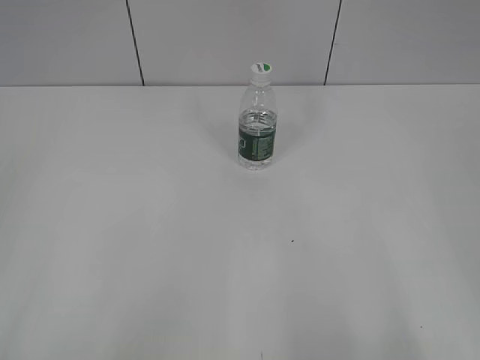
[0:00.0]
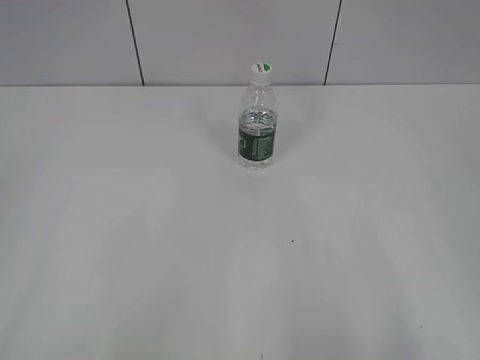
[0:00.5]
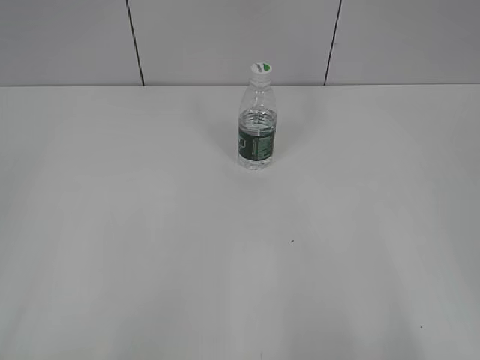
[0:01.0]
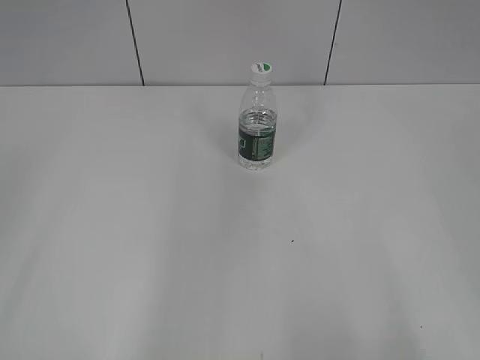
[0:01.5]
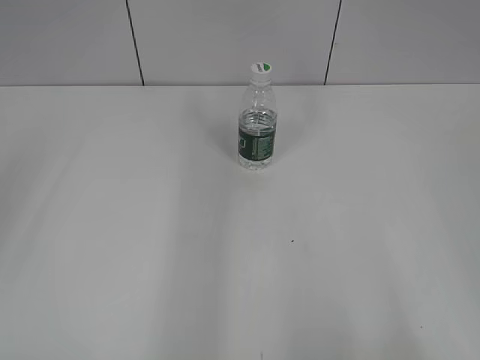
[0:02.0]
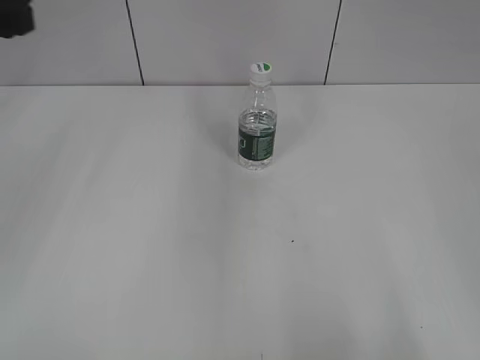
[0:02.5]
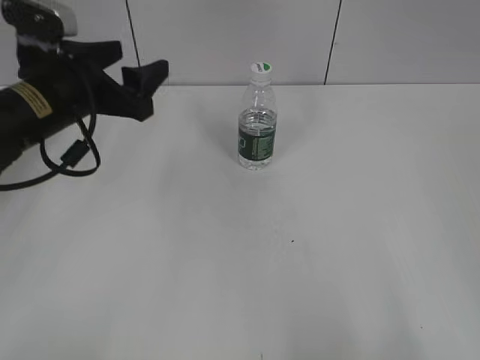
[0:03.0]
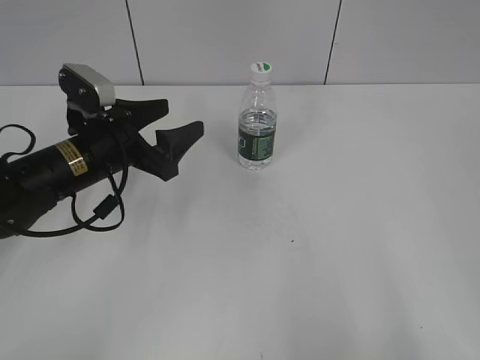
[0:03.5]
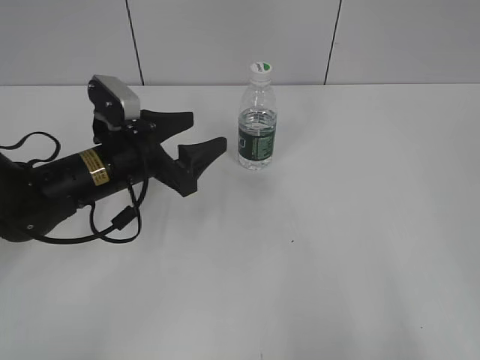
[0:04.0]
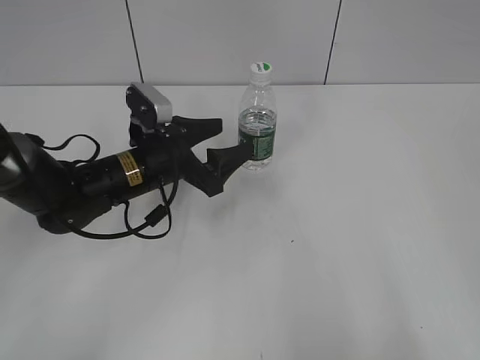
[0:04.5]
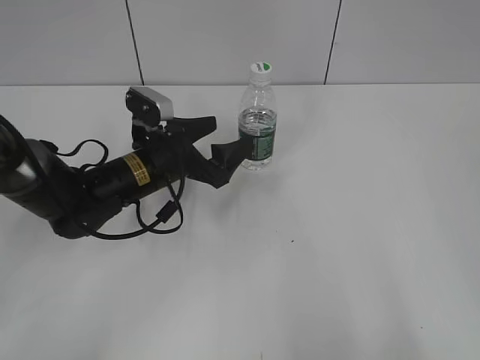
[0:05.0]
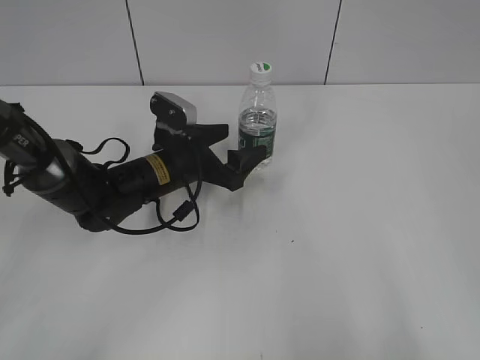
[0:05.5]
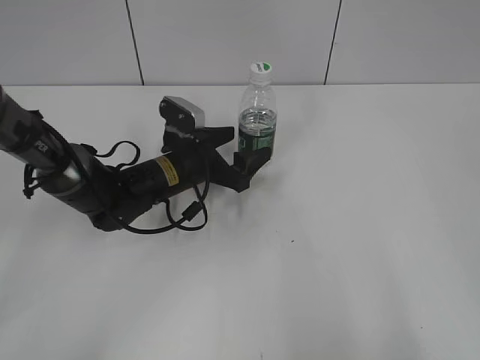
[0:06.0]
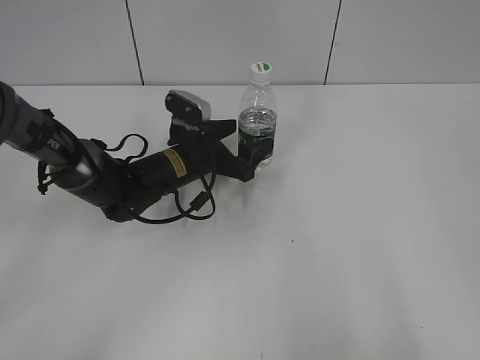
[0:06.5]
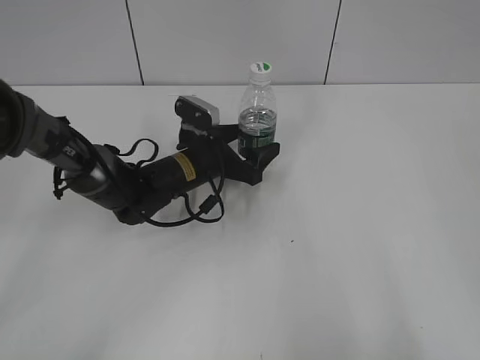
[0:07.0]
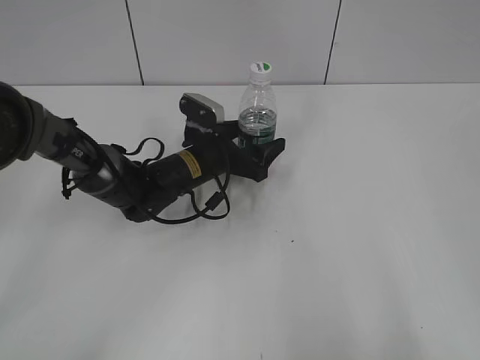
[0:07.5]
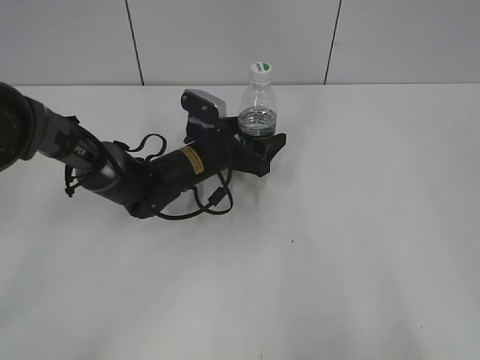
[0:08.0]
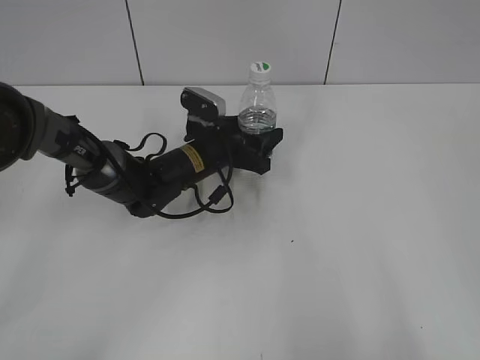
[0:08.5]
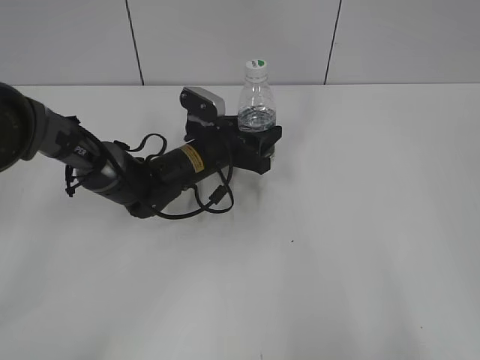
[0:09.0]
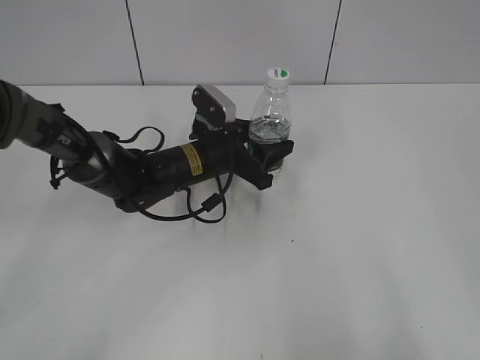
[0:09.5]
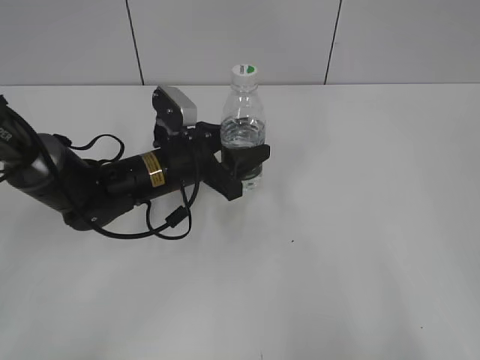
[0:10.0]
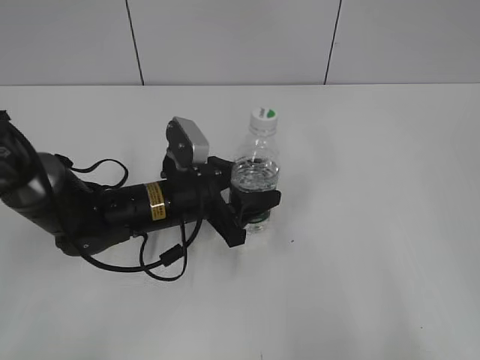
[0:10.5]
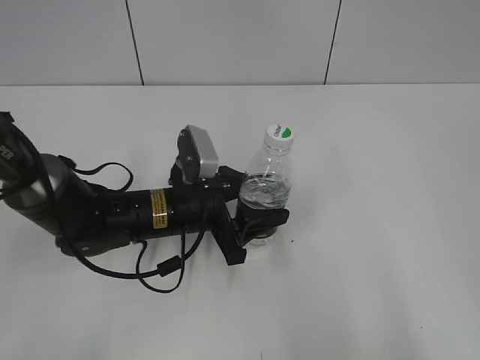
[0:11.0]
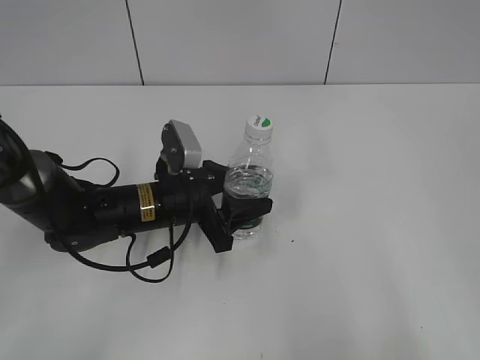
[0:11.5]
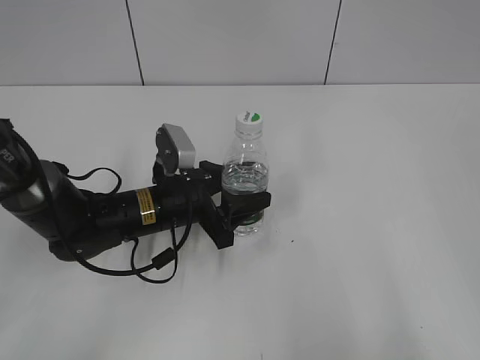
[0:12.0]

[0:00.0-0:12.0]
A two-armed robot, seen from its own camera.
Step, 0.0 to 8.5 s: Grasp the bottle and move it to the center of the table with the left gripper.
2.0 to 4.0 s: The left gripper travels downward, forward and to the right by roughly 35 cm.
4.0 to 6.0 s: The left gripper heads to the right, downward and forward, covering about 10 cm, and opens up.
6.0 to 8.0 s: The grippers make only small movements.
8.0 to 10.0 s: The left gripper heads backward, covering about 5 cm, and closes up.
10.0 to 12.0 s: The left gripper ends up about 5 cm from where it was.

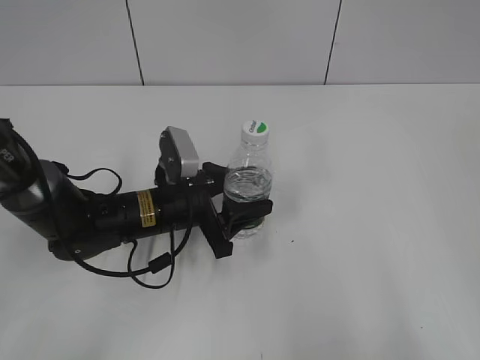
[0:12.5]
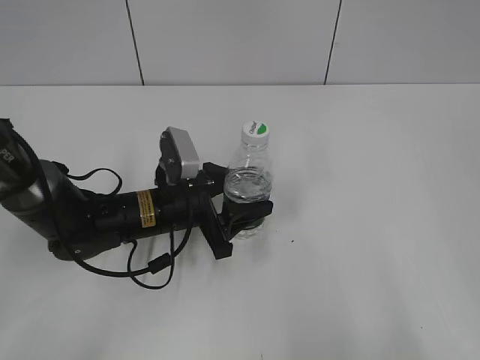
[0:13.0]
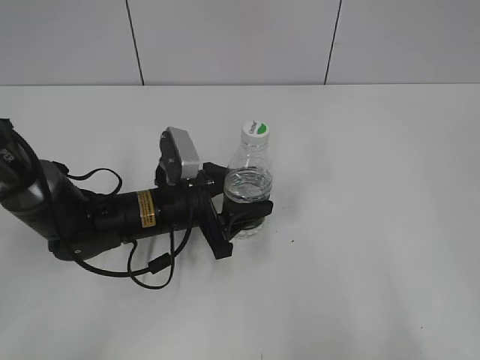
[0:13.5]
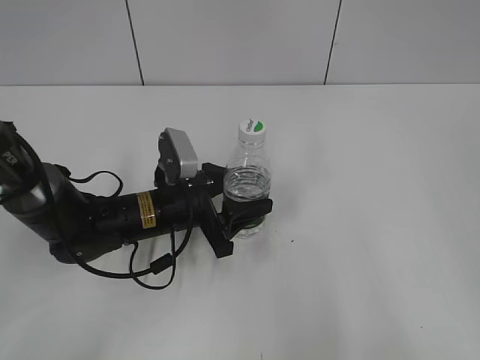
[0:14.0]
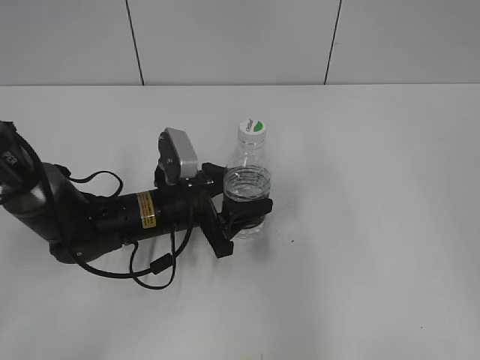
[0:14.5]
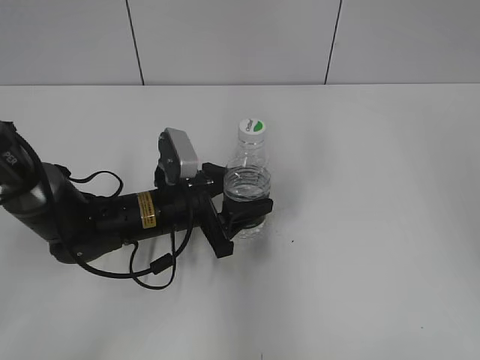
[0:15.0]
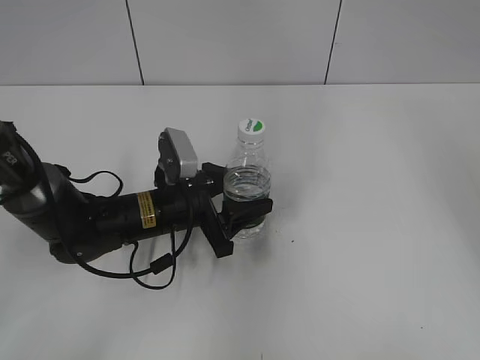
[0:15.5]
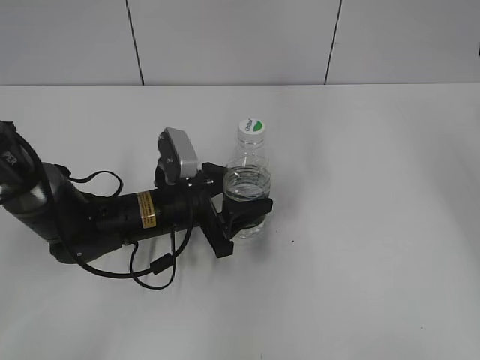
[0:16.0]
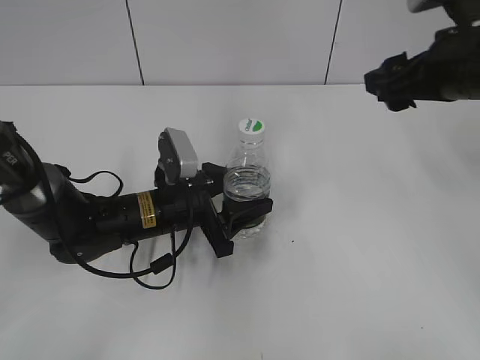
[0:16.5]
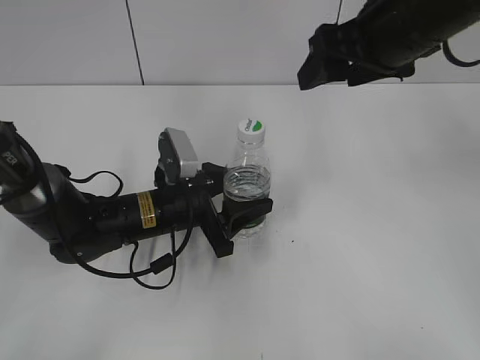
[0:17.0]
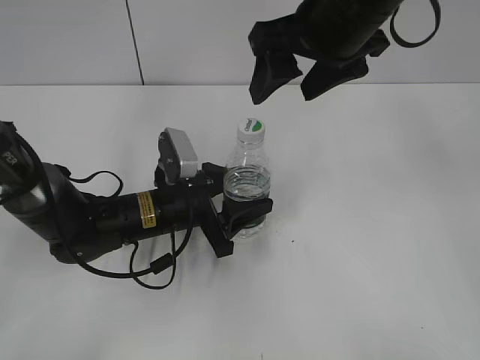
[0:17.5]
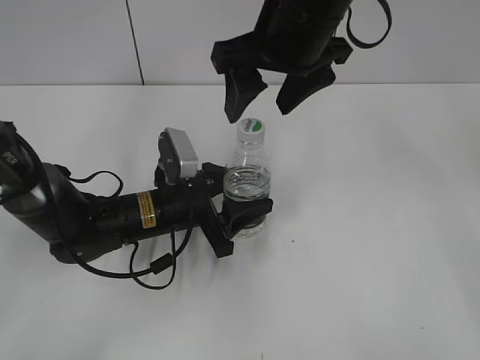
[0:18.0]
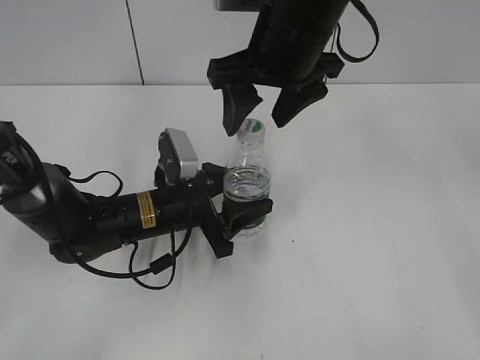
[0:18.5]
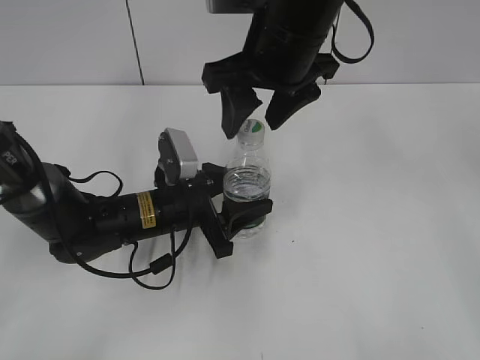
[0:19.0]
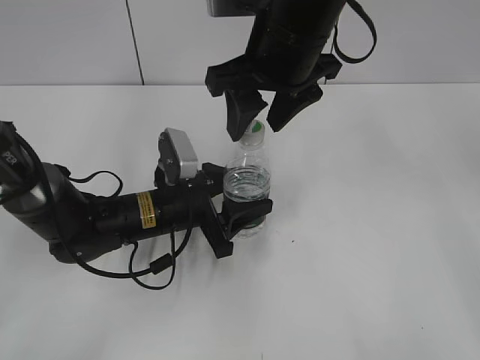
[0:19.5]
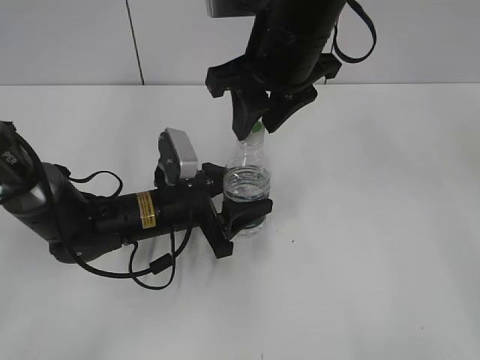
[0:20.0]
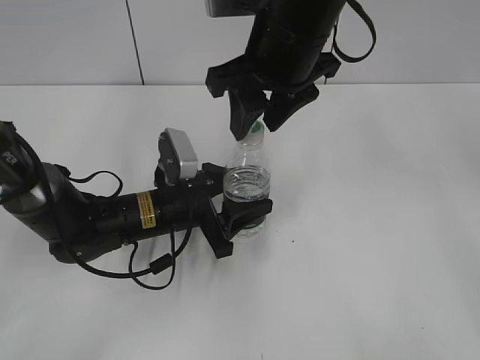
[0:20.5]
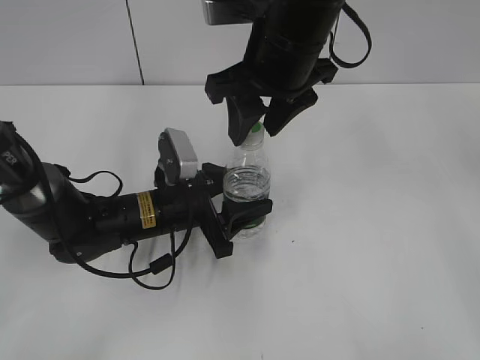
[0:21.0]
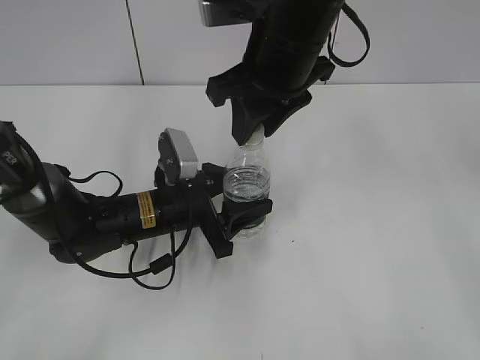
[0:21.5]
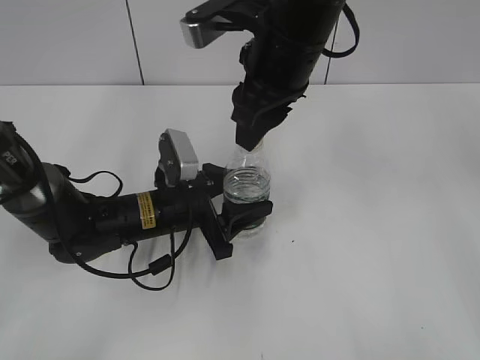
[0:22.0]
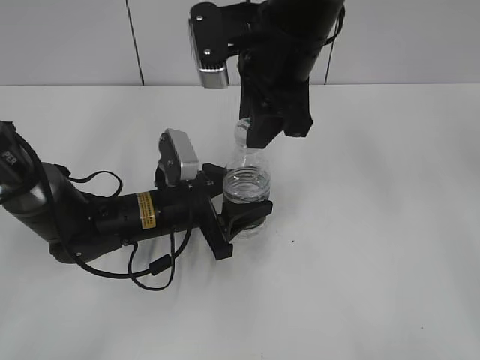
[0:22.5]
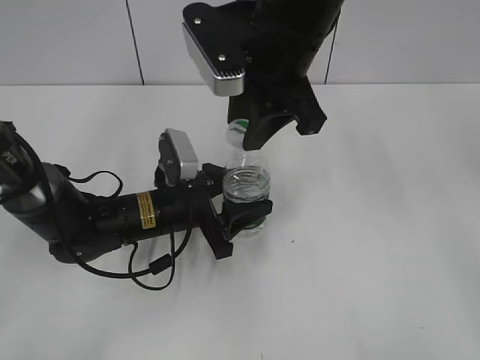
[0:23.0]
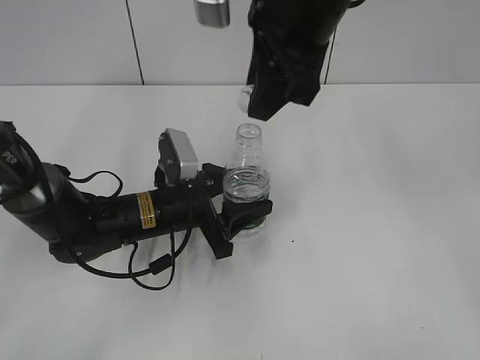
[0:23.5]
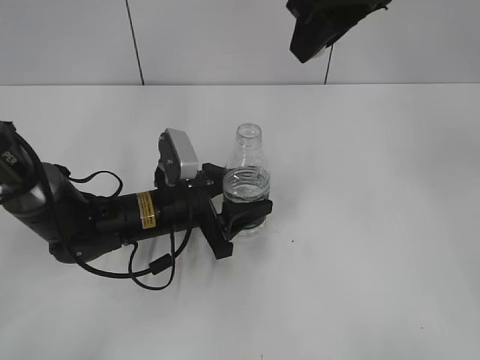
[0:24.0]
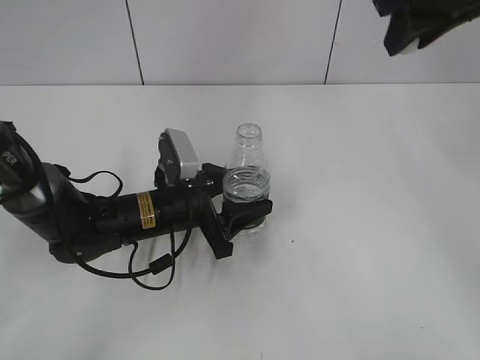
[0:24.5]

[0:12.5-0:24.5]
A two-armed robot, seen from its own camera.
Step, 15.0 to 23.0 s: Unscrew the bottle cap with the right gripper while holding the bottle with the left gripper.
12.5 to 14.5 s: The right gripper is displaced forward by about 10 cm.
14.5 to 16.5 s: The right gripper moves forward, roughly 25 cm.
16.5 to 18.5 s: The right gripper is displaced to the left by some 15 cm.
18.5 to 20.5 s: The right gripper closes up.
22.5 to 24.5 s: The right gripper heads to the right and upward, covering some 15 cm.

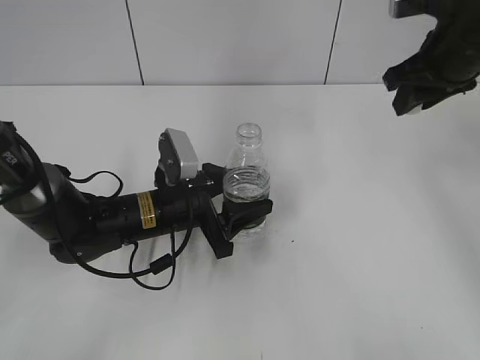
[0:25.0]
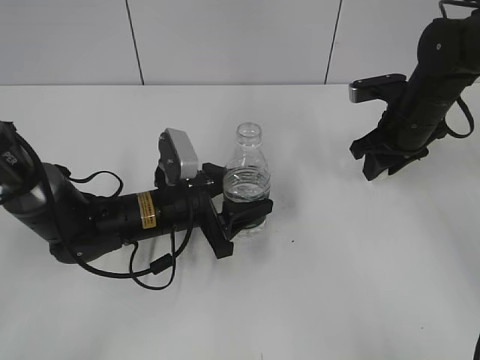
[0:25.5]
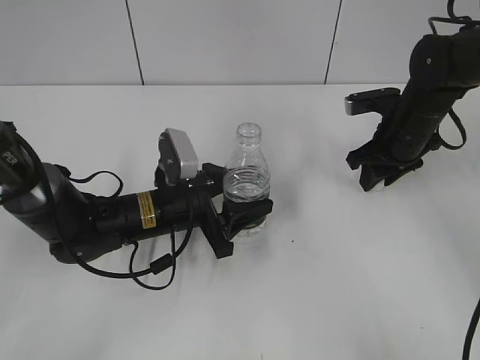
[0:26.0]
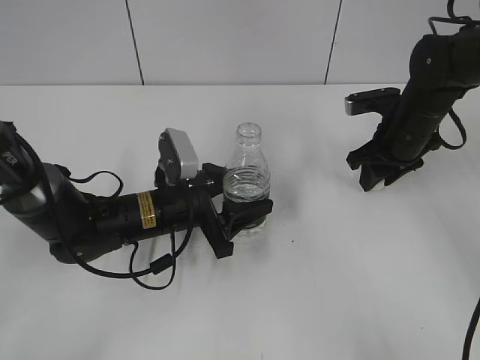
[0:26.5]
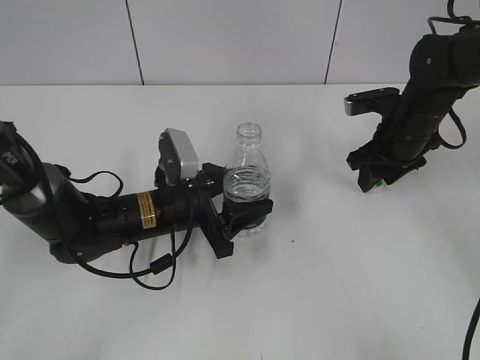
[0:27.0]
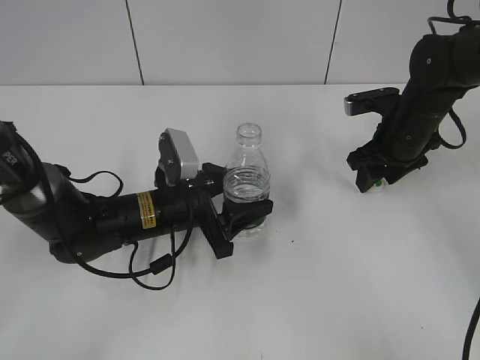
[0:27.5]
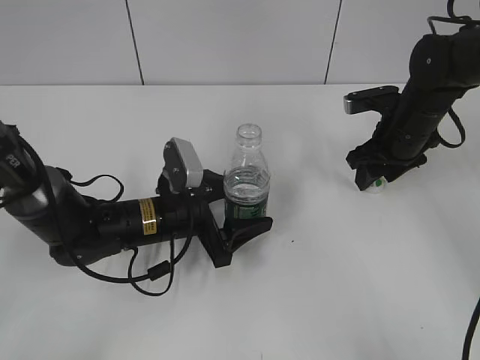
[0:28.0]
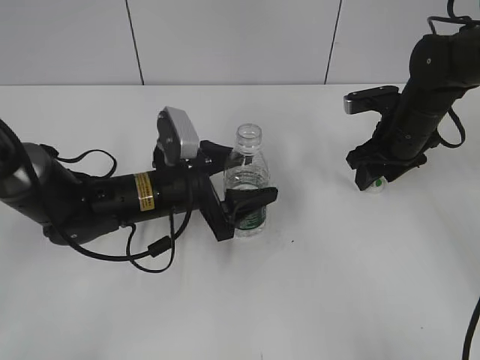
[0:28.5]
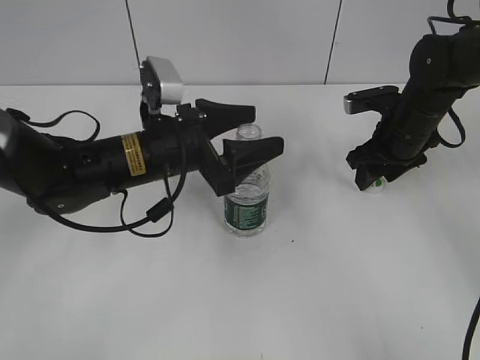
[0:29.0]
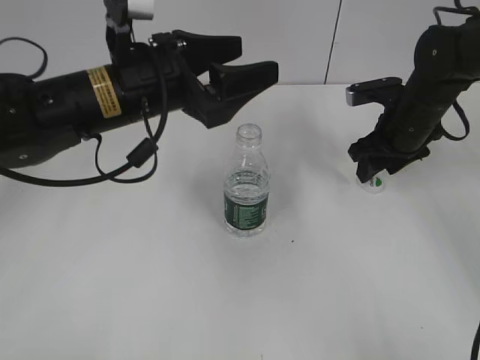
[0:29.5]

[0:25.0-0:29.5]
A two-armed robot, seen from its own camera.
Step, 25.0 to 27.0 s: Place the bottle cap on the table with the right gripper.
Step, 27.5 to 29.0 s: Place the bottle on the table with the left gripper.
25.0 to 27.0 s: The right gripper shifts about 15 cm downward.
27.0 to 29.5 s: The left gripper moves upward, roughly 15 cm, and opens up.
